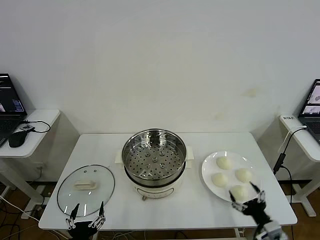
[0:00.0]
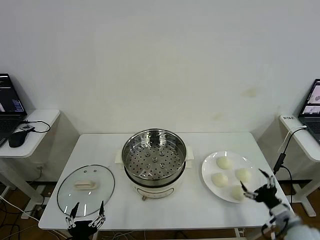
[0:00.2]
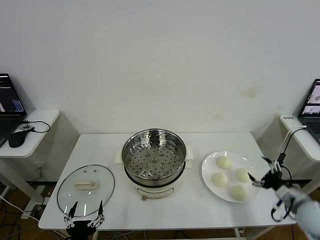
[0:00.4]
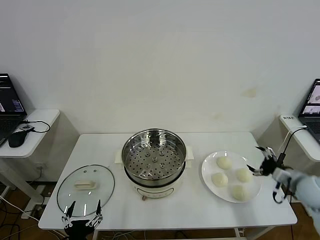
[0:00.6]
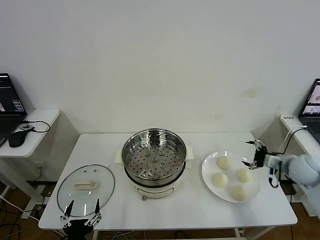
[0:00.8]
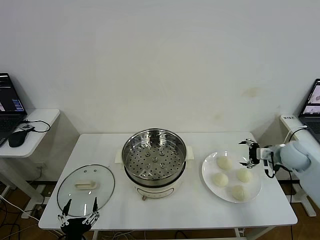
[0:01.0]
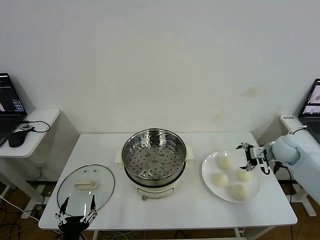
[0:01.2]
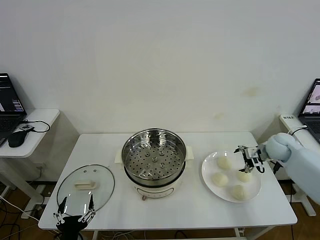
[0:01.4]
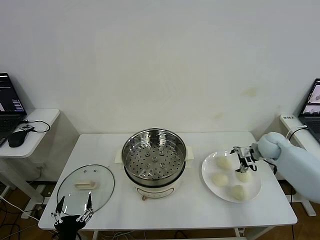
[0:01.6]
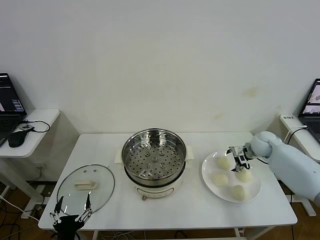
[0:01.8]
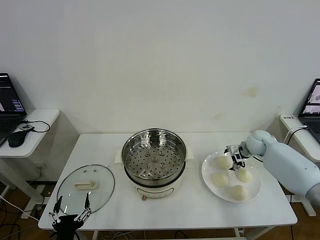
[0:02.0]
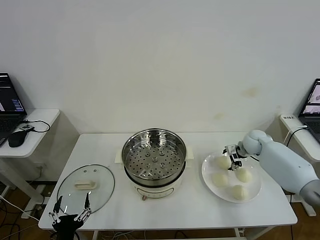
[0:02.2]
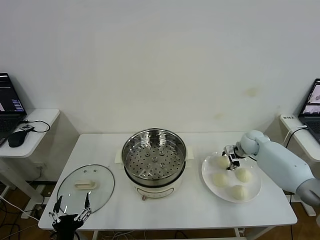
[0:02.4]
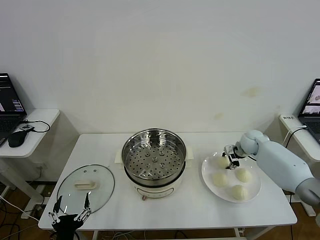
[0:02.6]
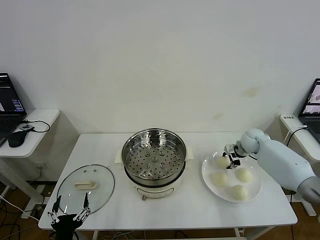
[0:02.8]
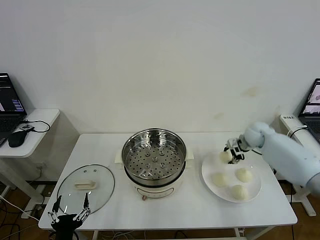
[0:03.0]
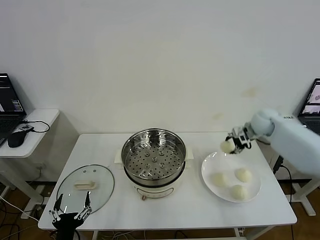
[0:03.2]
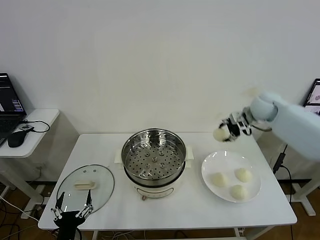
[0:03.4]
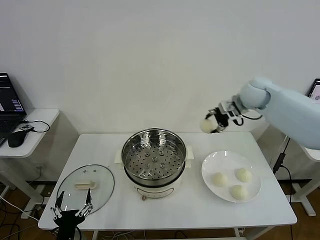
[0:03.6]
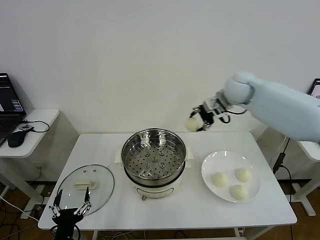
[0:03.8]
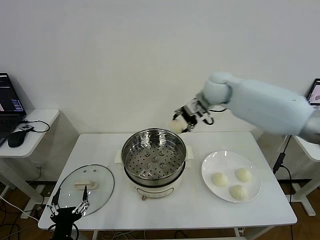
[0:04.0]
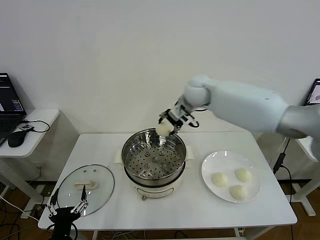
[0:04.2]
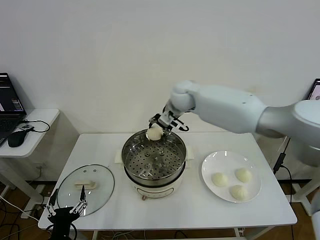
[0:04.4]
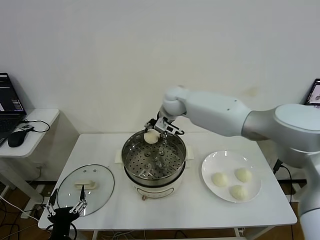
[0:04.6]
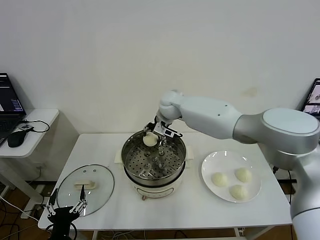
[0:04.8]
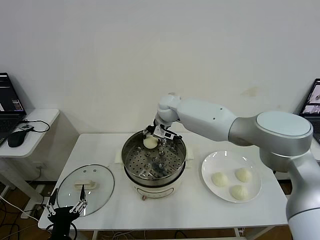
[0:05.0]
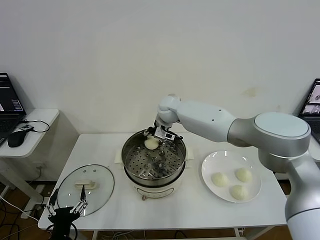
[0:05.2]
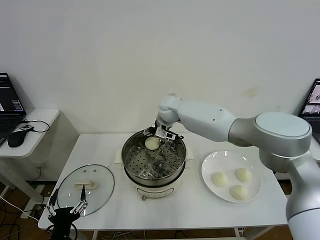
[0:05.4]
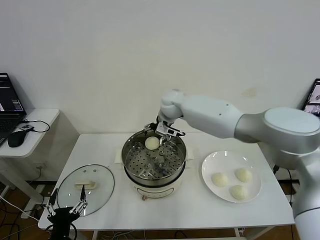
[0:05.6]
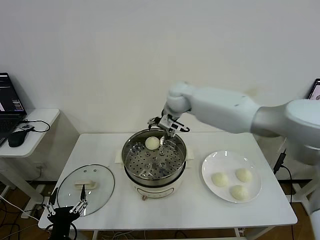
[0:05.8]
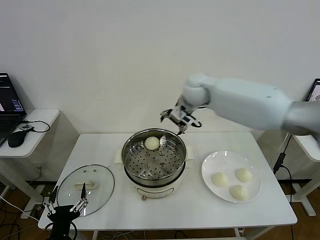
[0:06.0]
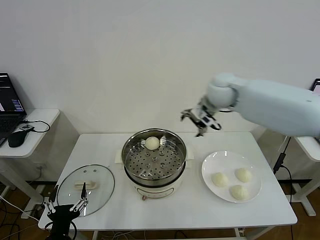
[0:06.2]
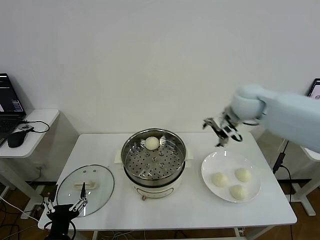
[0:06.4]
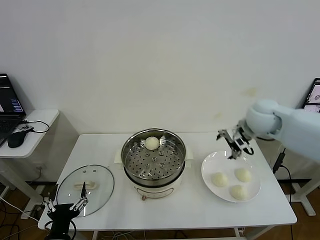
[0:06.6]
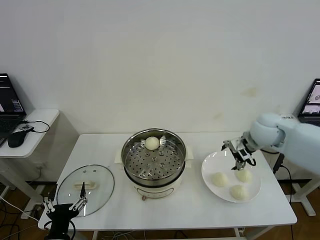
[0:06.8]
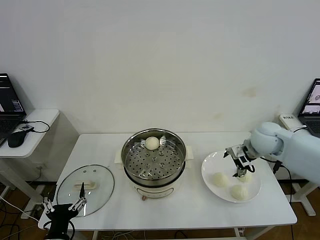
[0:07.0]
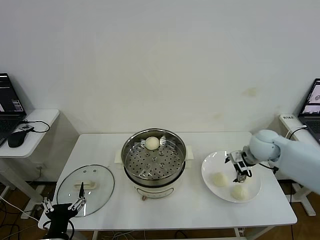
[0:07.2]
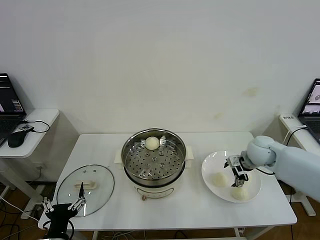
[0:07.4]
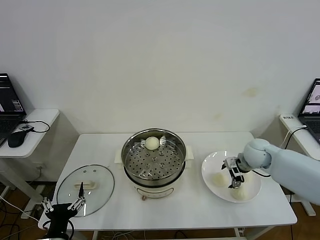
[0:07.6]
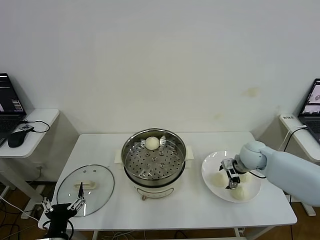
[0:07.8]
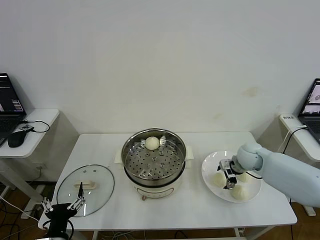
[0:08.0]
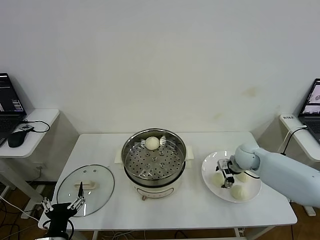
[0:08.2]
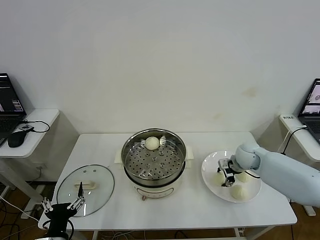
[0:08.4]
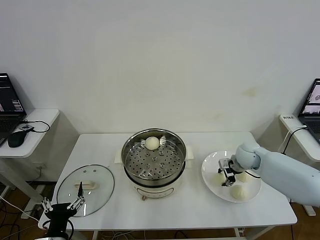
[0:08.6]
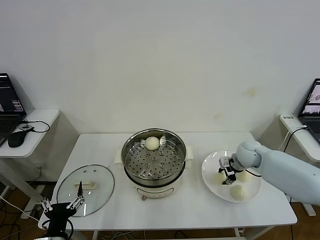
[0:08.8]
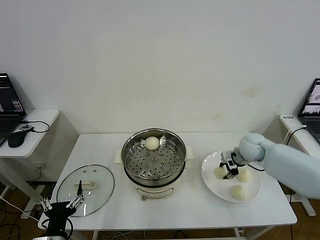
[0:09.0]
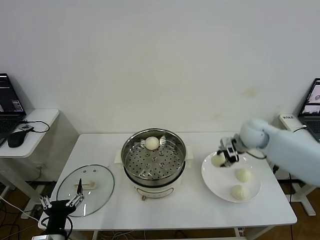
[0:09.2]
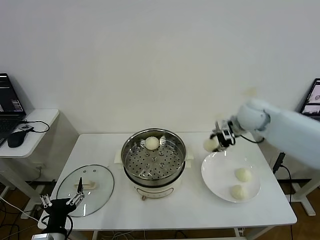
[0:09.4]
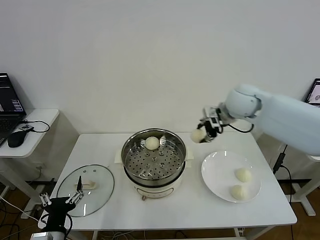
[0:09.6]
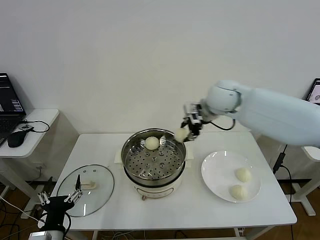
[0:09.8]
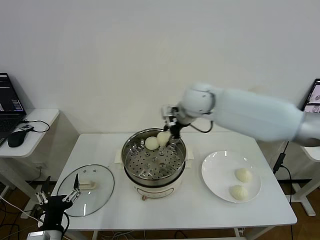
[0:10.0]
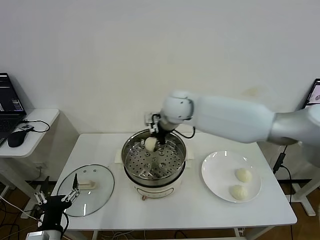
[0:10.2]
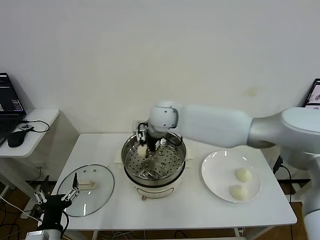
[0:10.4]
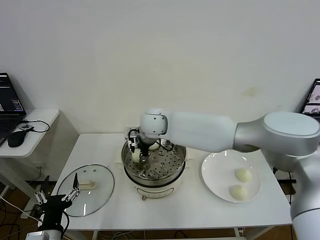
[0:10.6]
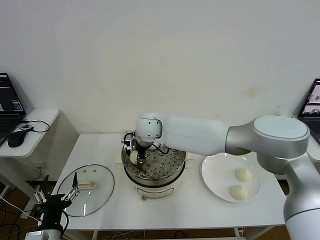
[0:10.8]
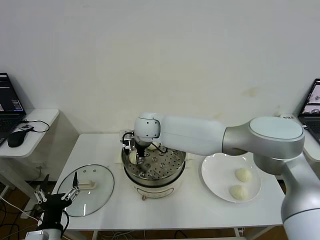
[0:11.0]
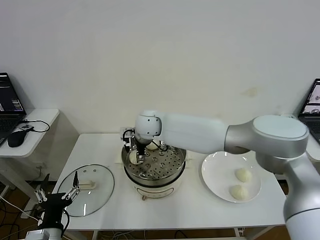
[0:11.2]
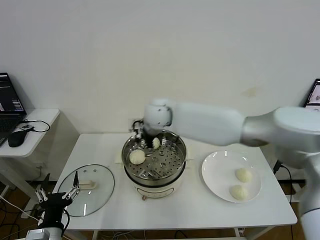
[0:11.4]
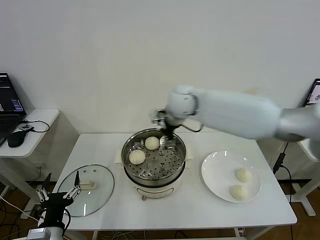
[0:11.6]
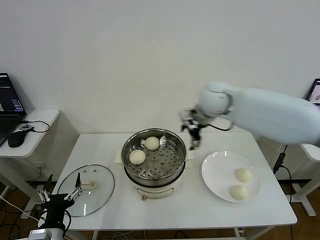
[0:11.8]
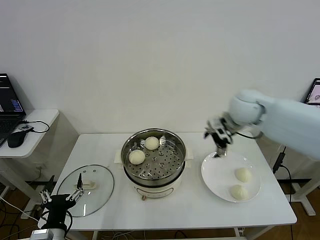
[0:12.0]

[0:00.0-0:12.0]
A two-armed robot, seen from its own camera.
Step, 0:00.0 to 0:02.6: Grasp the baozi in the plate with right gripper.
Step, 0:02.8 to 0:05.4: Place the baozi on the steamer with right gripper.
Step, 0:05.6 to 0:08.4: Grasp the baozi in the plate with right gripper.
Step, 0:08.8 to 0:11.0: Place the baozi on the steamer with right gripper.
0:01.6 to 0:03.0: The right gripper heads upward, covering about 5 cm, and closes.
0:03.0 to 0:04.4: The right gripper goes approximately 30 cm to the left.
0:04.4 to 0:06.0: The right gripper travels to the right and upward by some 10 cm, and opens up.
0:06.0 to 0:07.6: The right gripper heads downward, to the right and backward, covering approximately 30 cm.
0:07.6 to 0:09.0: The right gripper closes up.
0:09.0 to 0:10.4: The right gripper goes roughly 35 cm to the left.
0:10.4 to 0:12.0: The right gripper is displaced to the right by roughly 30 cm, and opens its fingers.

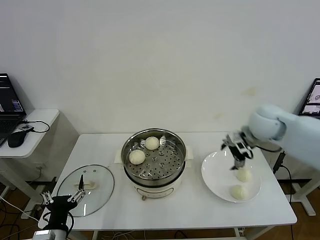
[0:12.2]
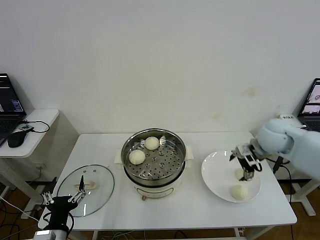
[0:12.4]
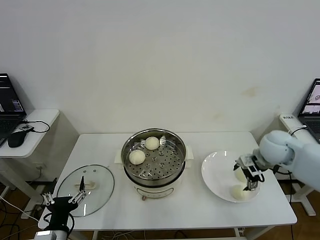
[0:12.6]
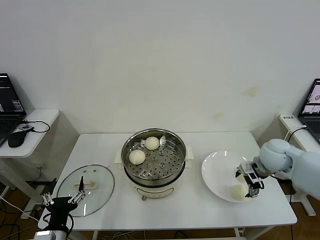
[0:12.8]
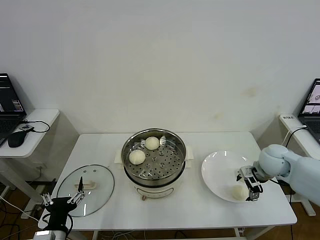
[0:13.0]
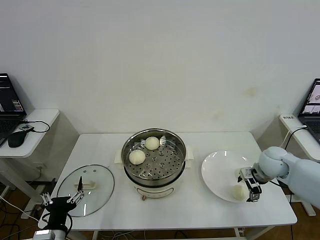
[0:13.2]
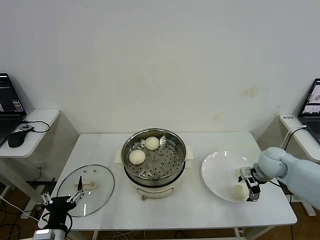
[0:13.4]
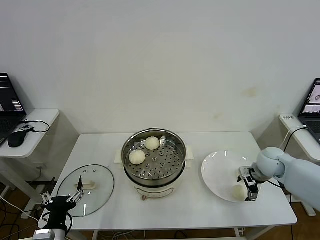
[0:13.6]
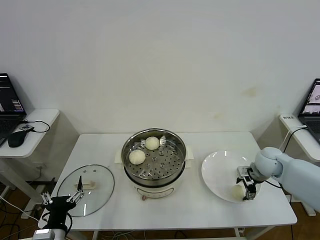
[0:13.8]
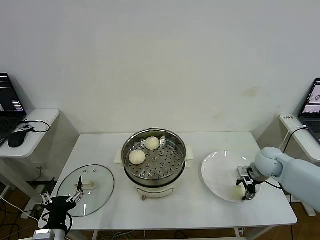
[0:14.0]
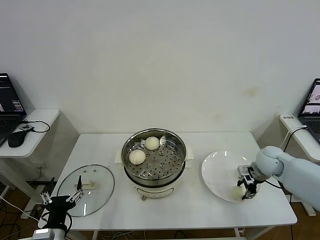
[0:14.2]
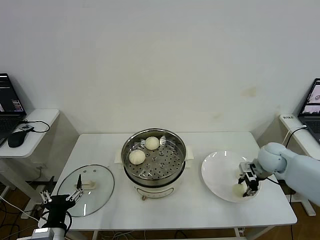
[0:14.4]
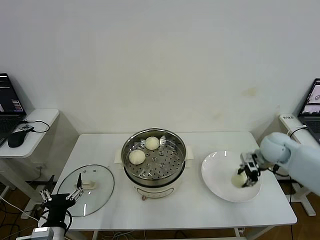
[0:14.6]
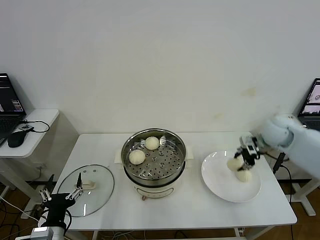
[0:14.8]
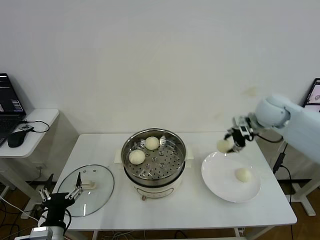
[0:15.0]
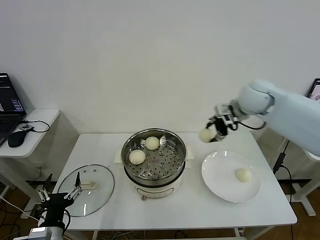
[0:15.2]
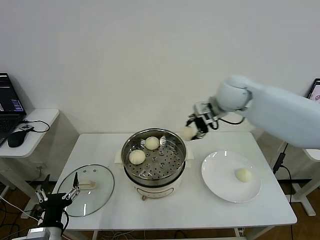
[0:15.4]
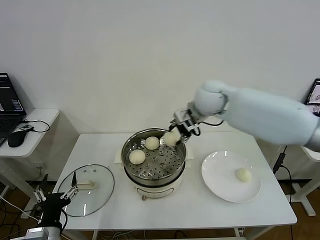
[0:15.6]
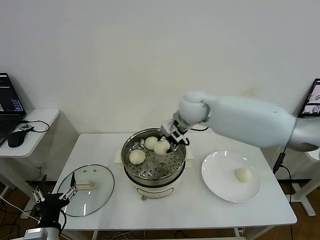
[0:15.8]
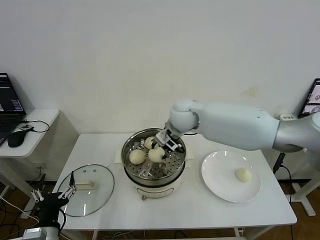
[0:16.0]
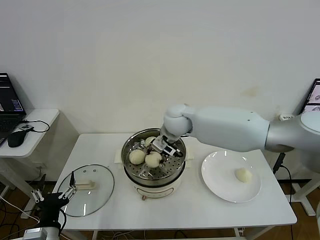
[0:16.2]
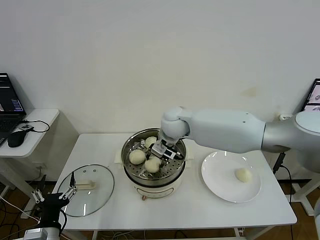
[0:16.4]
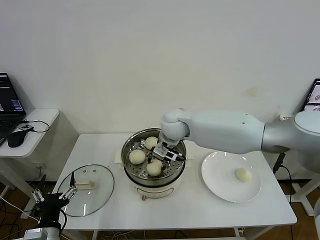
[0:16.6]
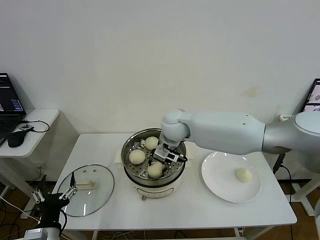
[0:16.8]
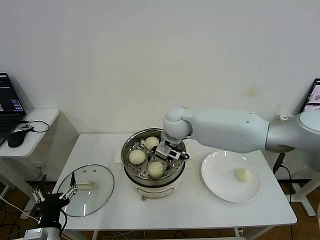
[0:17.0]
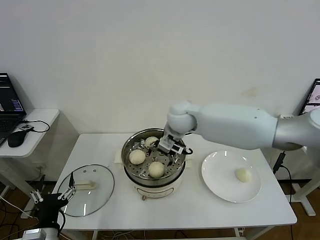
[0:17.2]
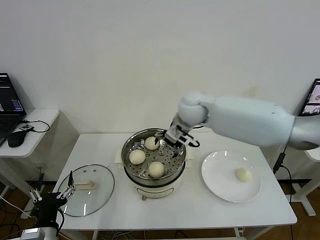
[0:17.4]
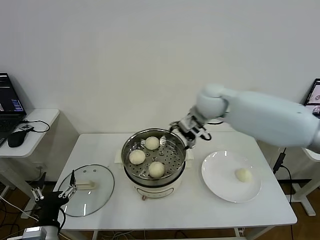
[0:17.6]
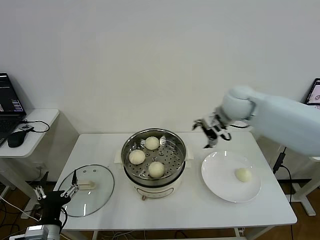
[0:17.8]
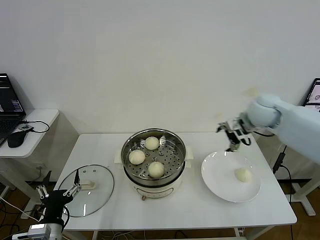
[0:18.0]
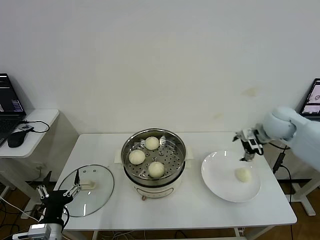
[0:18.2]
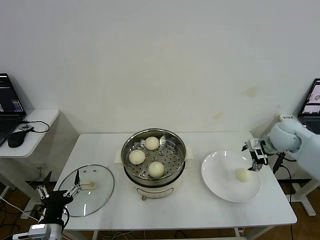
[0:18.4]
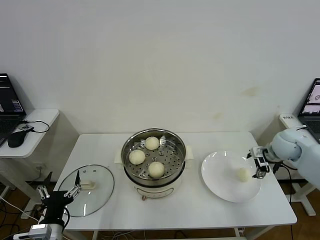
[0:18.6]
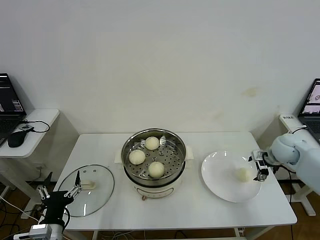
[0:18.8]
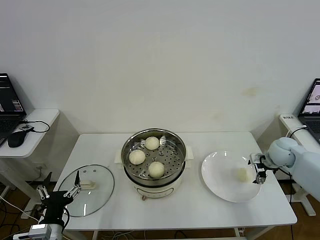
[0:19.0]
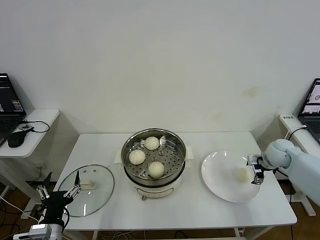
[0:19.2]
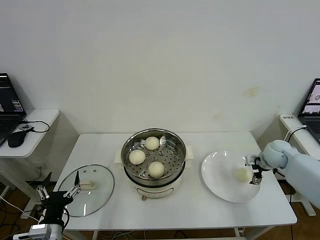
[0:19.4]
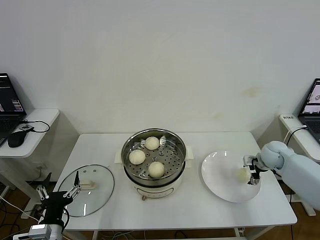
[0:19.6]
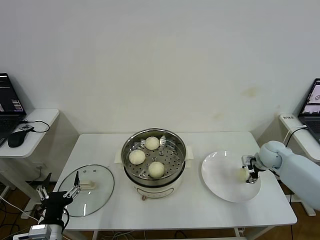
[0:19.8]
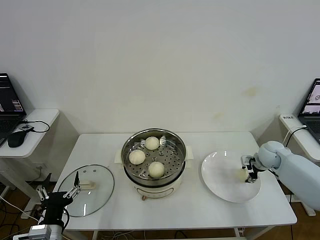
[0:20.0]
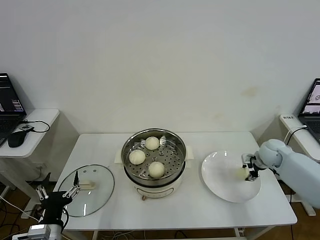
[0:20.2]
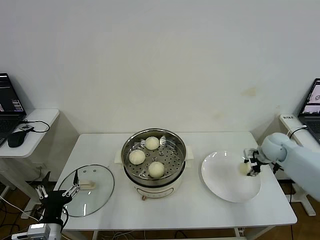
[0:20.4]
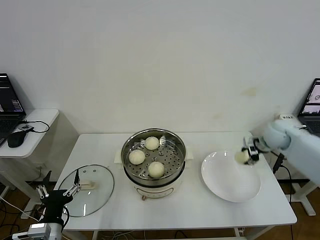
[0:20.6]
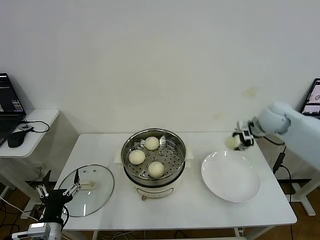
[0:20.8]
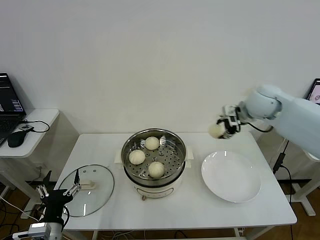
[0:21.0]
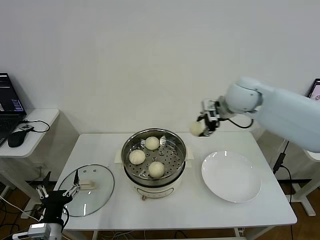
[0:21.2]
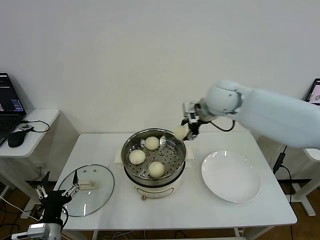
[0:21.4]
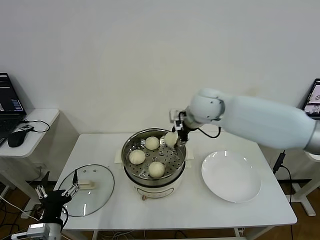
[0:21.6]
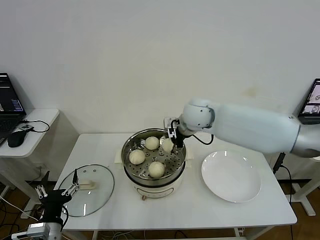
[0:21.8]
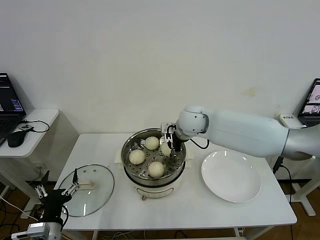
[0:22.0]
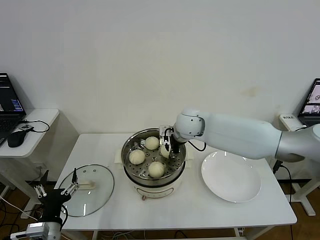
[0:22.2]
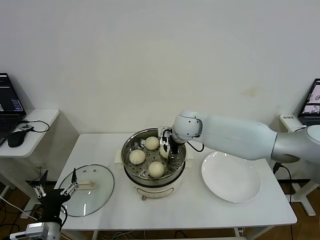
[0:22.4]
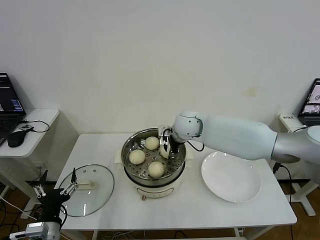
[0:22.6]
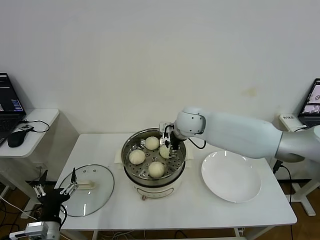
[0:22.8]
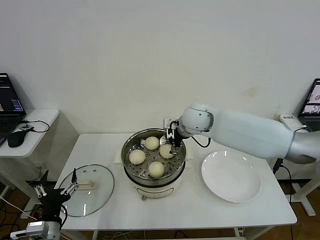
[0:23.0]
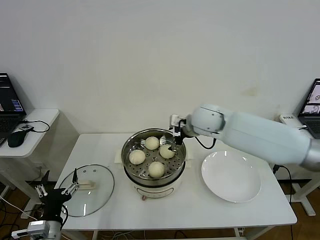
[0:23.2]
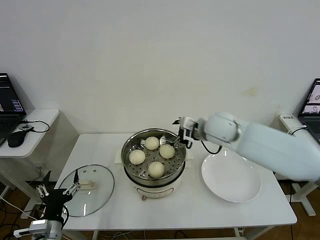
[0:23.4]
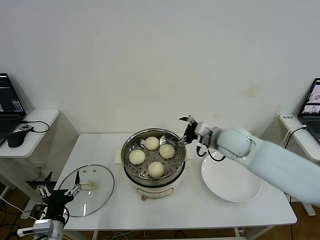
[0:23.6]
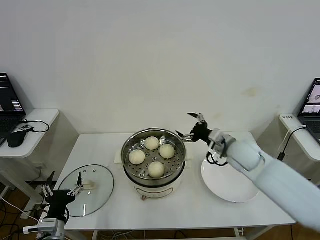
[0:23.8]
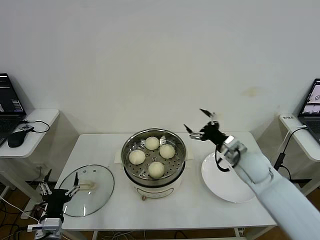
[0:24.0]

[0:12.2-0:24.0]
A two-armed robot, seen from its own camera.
Step, 0:12.2 to 0:14.2: Grasp the baozi in the plate with right gripper.
Step, 0:14.4 to 0:17.0: Place the baozi on the steamer with right gripper.
Step, 0:17.2 to 0:20.2: Grasp the baozi in the plate with right gripper.
Step, 0:20.4 to 0:22.6: Place the baozi on the steamer with right gripper.
0:12.2 to 0:13.6: The right gripper shifts roughly 15 cm downward and to the right.
0:13.6 to 0:15.2: The right gripper heads upward and to the left, covering approximately 25 cm, and closes up.
0:15.2 to 0:16.6: The right gripper travels to the left and downward by approximately 25 cm.
0:16.6 to 0:18.2: The right gripper goes some 35 cm to the right, and opens its fingers.
0:18.2 to 0:19.6: The right gripper goes approximately 15 cm downward.
0:19.6 to 0:21.0: The right gripper moves upward and to the left, roughly 25 cm, and closes.
0:21.0 to 0:22.6: The right gripper travels to the left and downward by about 20 cm.
0:22.6 to 0:24.0: The right gripper shifts about 25 cm to the right and backward, and opens its fingers.
